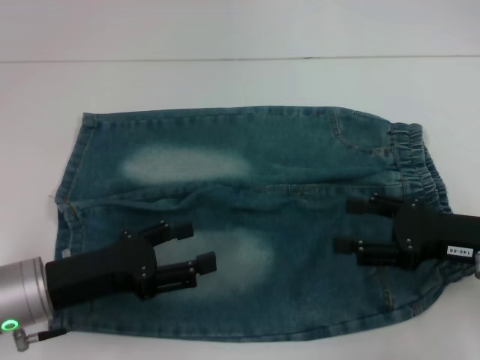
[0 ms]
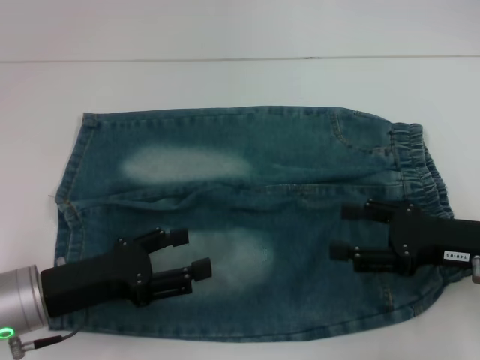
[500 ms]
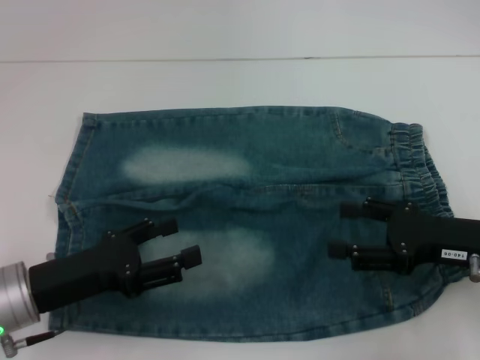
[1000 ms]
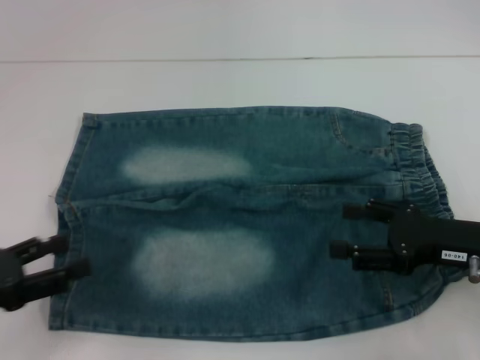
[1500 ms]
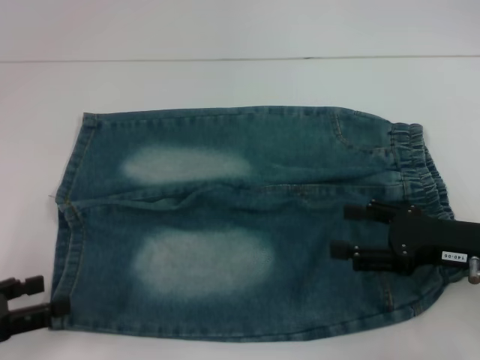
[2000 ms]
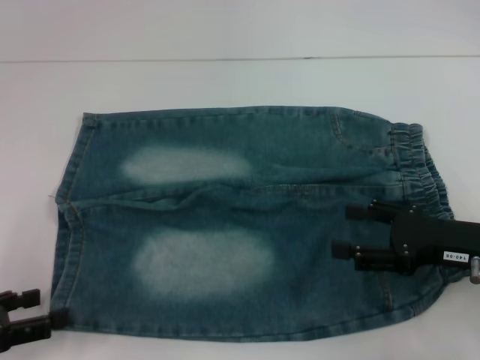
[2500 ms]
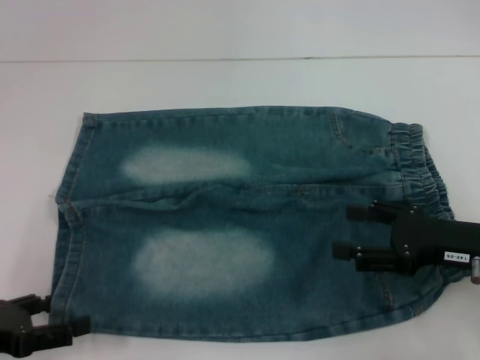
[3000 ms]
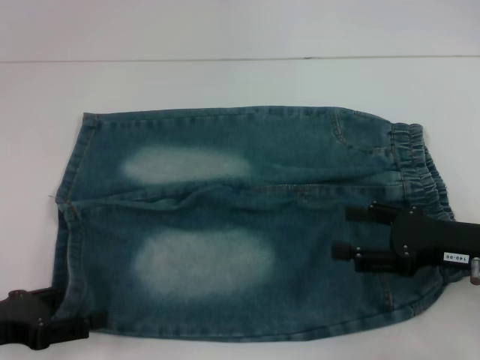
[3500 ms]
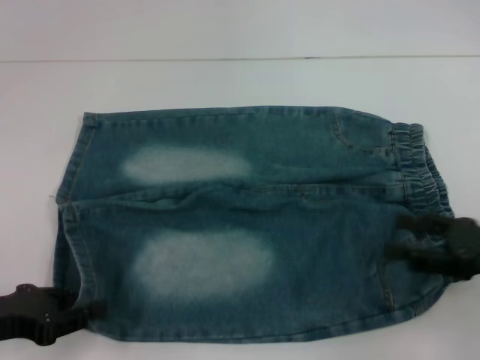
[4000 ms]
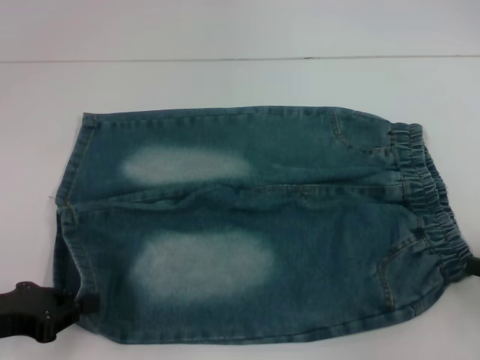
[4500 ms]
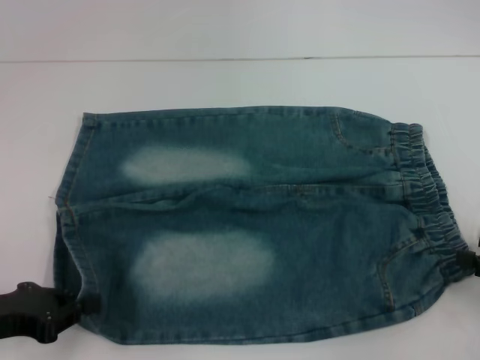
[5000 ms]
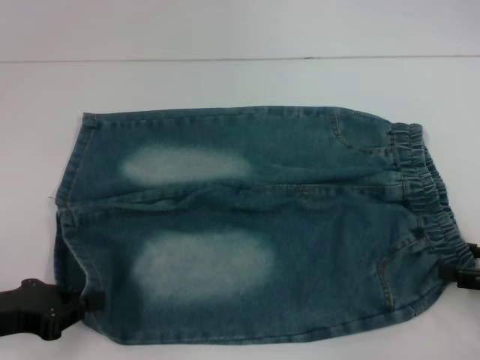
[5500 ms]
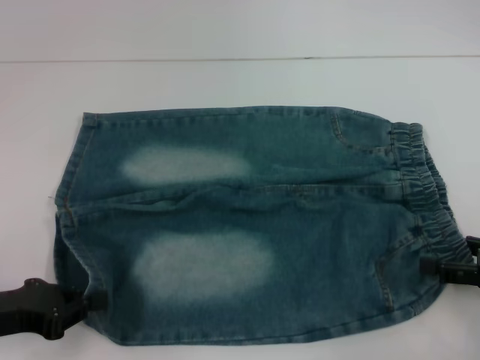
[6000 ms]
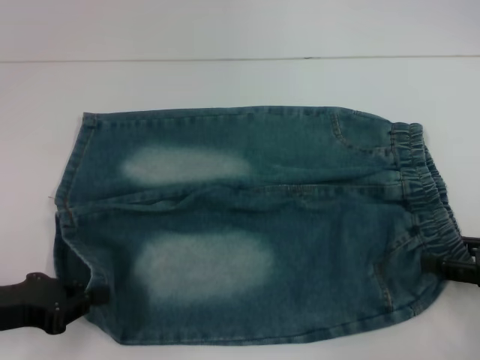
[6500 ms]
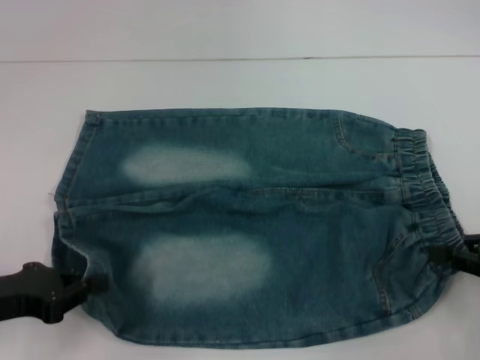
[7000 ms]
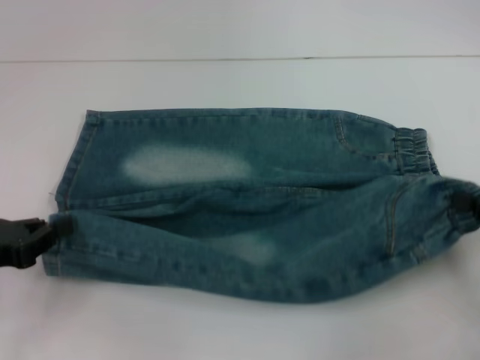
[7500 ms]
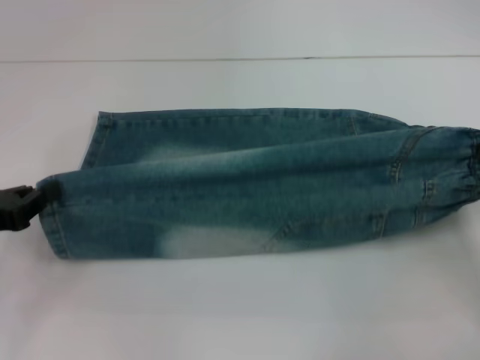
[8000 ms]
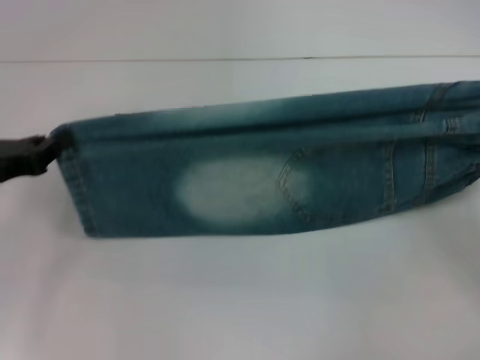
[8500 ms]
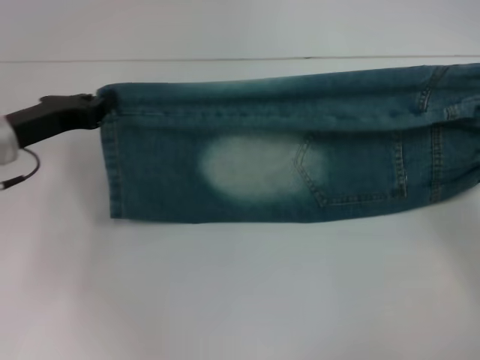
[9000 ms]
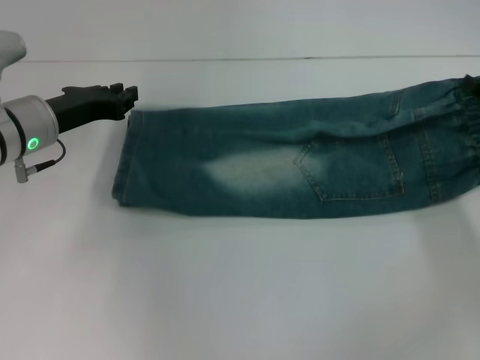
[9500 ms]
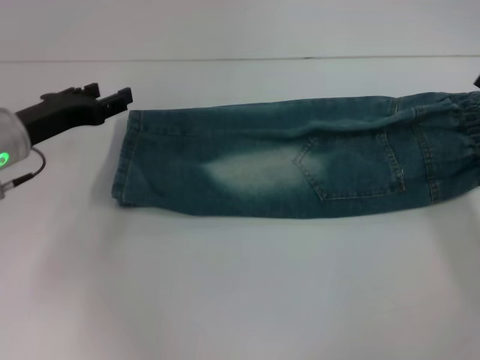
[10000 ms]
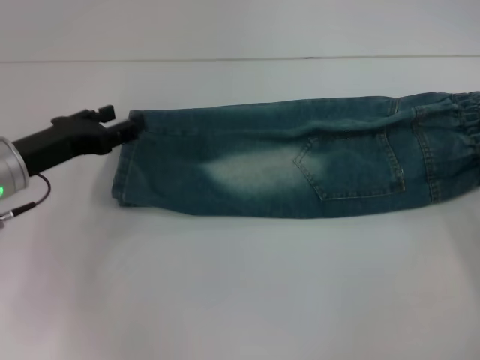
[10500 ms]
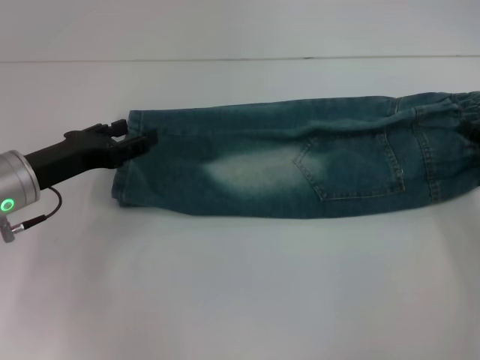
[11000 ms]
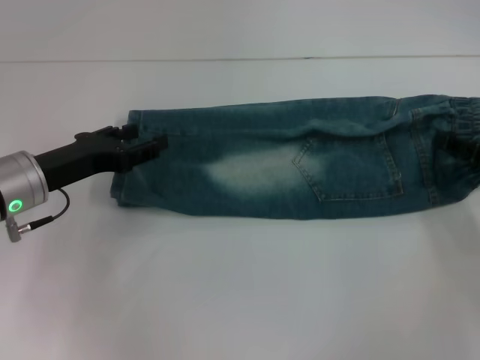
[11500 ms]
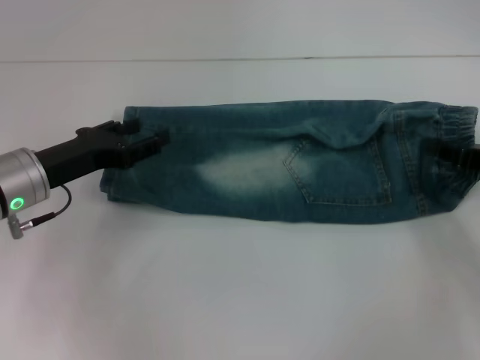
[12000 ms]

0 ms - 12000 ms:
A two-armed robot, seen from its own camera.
Step, 0 ms - 3500 ms: Grab the lower left pant leg with your left hand.
Step, 4000 ms - 7000 ms: Hold the lower right waistband with your right hand.
Step, 7500 ms - 10000 ms: Fold upward with your right hand.
Step, 10500 ms - 11500 ms: Grab the waistband with your right hand.
0 ms - 2000 ms: The left gripper is displaced to the left and backward by approximately 15 cm.
2000 ms - 4000 ms: The left gripper closes its fingers; the right gripper moves some 5 cm.
4000 ms - 6000 ms: The left gripper closes.
6000 ms - 8000 ms: The right gripper closes up, while the left gripper ends up some 5 cm from where it was.
8000 ms - 10000 ms: The right gripper moves forward, some 5 cm, and opens up; the left gripper travels forward and to the right by roughly 15 cm, and opens.
10000 ms - 12000 ms: The right gripper opens, then closes again.

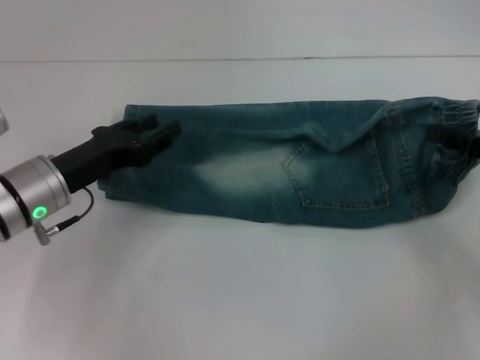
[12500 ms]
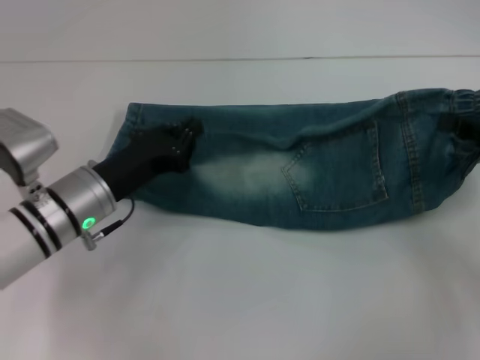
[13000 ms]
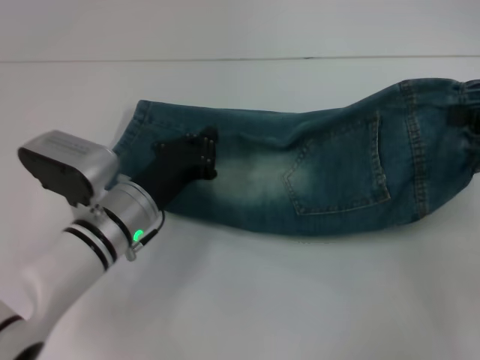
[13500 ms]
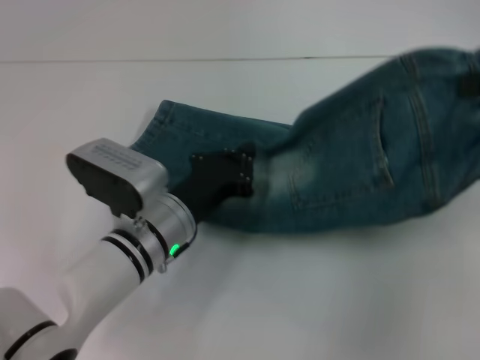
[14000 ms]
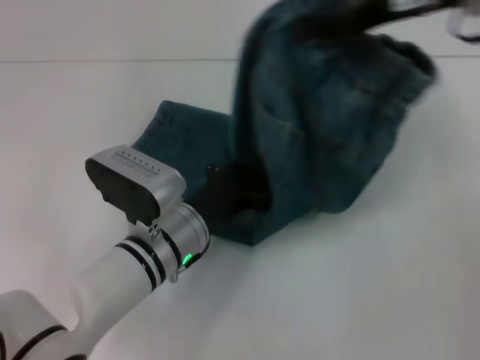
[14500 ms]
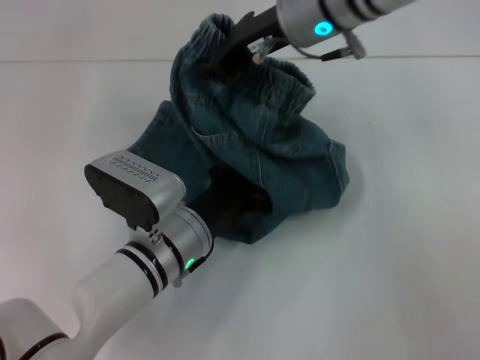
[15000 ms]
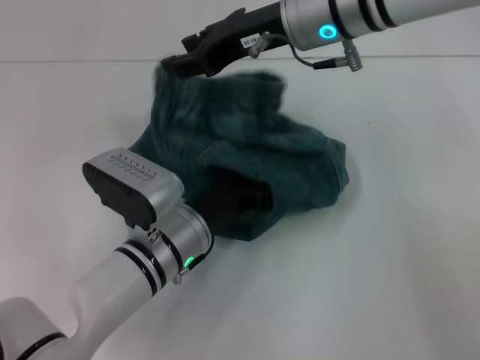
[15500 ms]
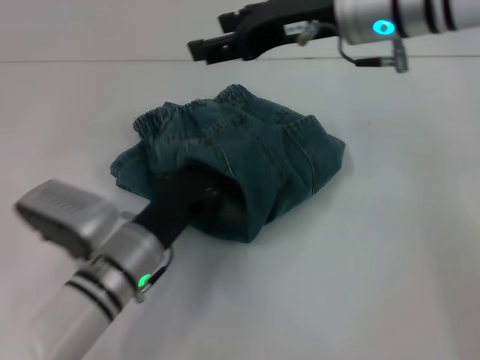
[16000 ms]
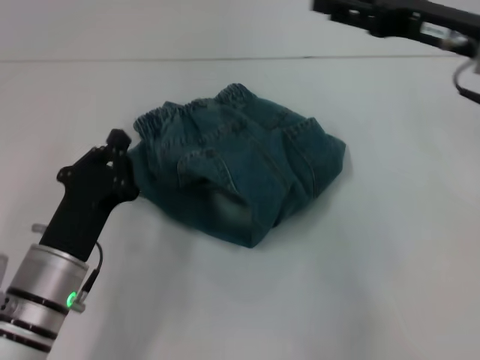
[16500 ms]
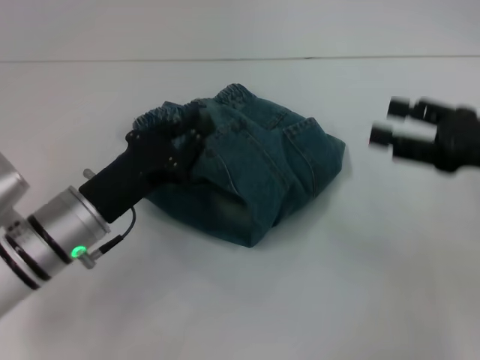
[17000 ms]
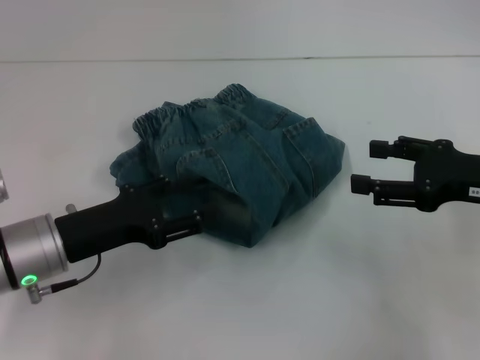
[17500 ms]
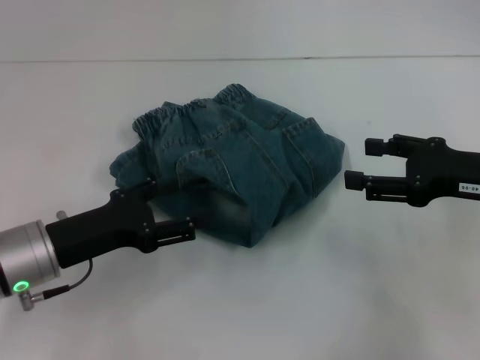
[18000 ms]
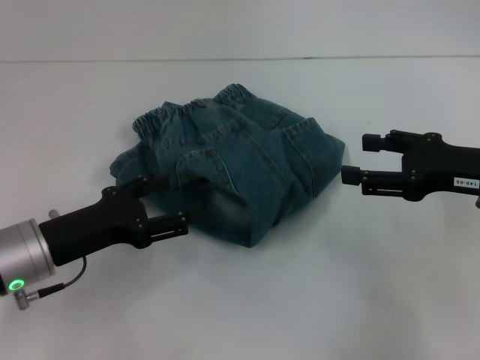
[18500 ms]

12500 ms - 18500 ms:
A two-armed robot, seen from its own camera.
Step, 12500 ms - 15000 ms: Press the middle of the pants with your left hand.
Step, 15500 ms - 16000 ms: Fold to the left with your right hand.
12500 ms - 14500 ms: The left gripper moves to the right, some 15 cm, and closes; the right gripper goes about 25 cm upward, to the left and forward.
14500 ms - 16500 ms: The left gripper is displaced to the left and backward by approximately 10 cm. Meanwhile the right gripper travels downward by about 10 cm, goes to the left and returns, some 15 cm each way, and opens.
16500 ms - 18500 ms: The left gripper shifts by about 5 cm, and opens up. The right gripper travels backward and downward by roughly 10 cm.
